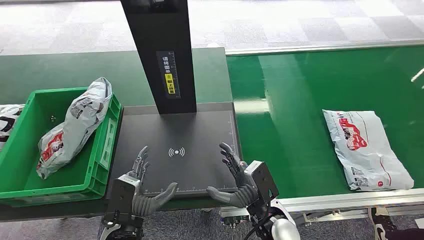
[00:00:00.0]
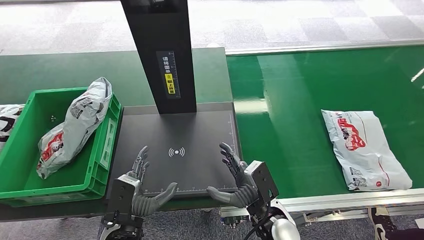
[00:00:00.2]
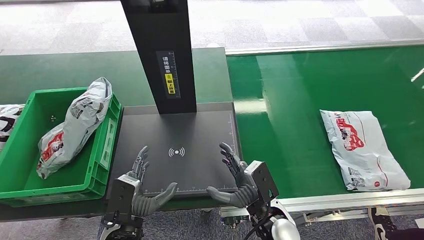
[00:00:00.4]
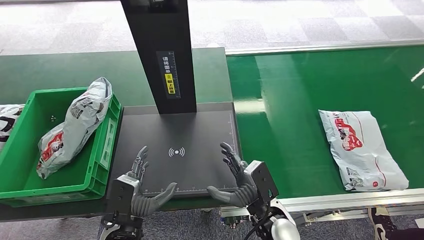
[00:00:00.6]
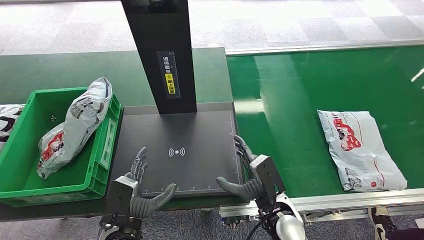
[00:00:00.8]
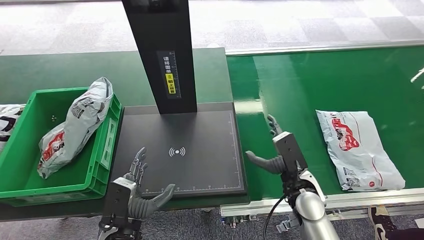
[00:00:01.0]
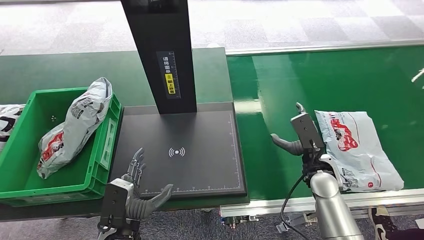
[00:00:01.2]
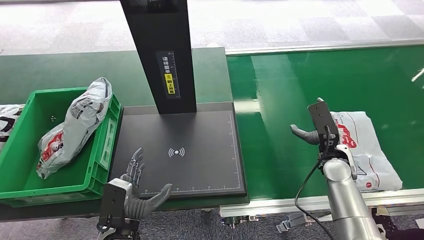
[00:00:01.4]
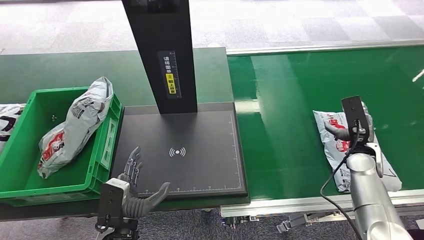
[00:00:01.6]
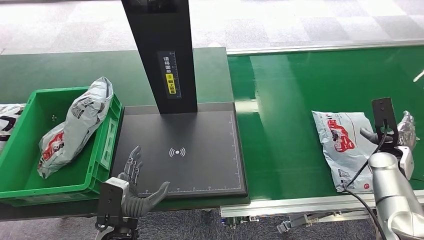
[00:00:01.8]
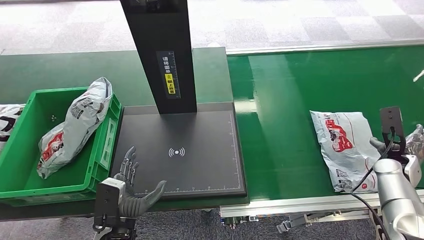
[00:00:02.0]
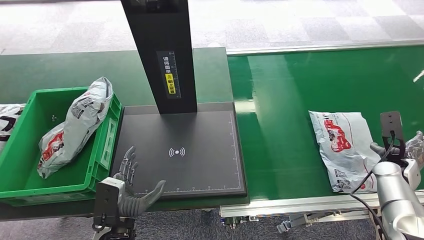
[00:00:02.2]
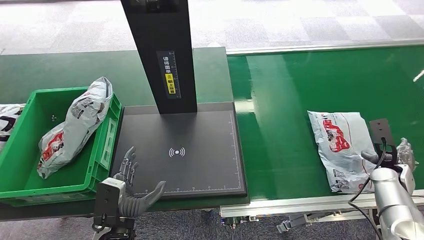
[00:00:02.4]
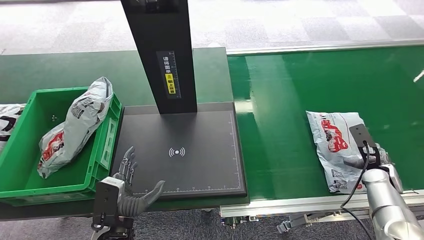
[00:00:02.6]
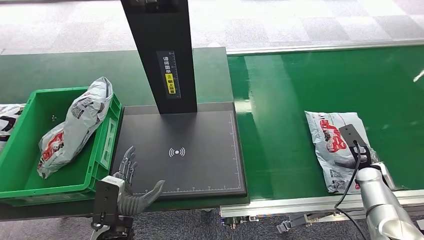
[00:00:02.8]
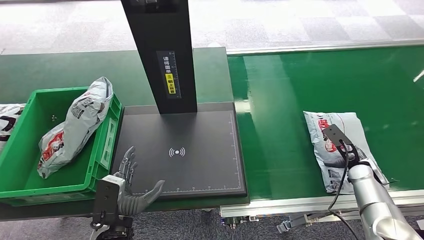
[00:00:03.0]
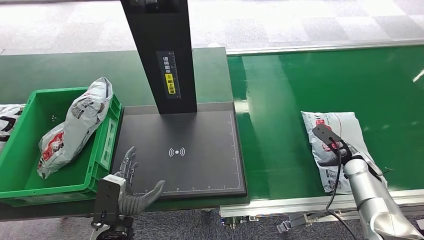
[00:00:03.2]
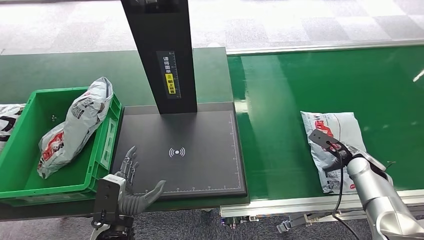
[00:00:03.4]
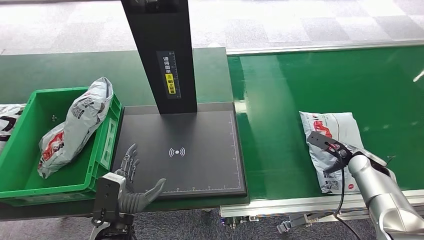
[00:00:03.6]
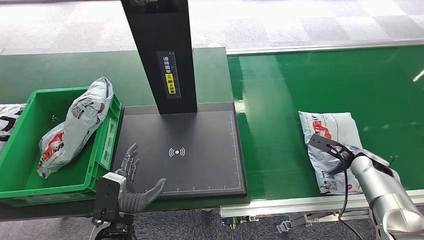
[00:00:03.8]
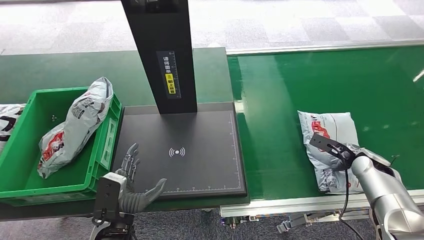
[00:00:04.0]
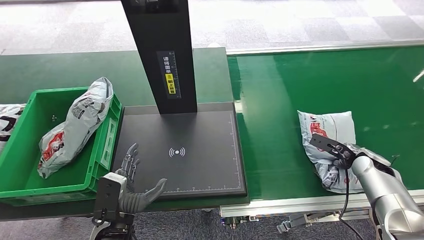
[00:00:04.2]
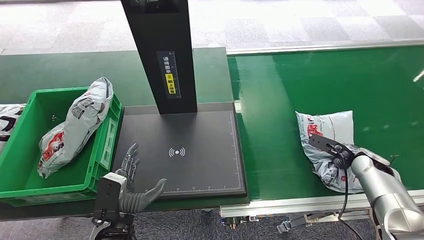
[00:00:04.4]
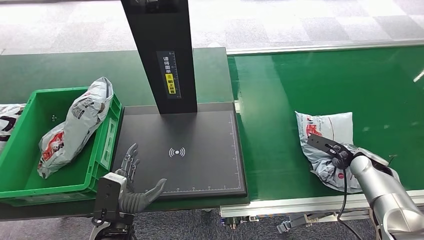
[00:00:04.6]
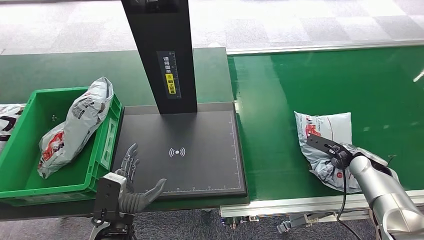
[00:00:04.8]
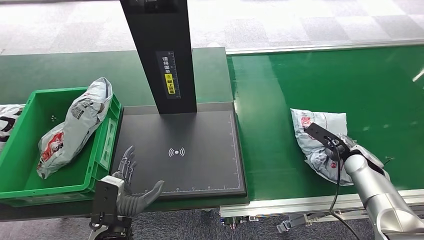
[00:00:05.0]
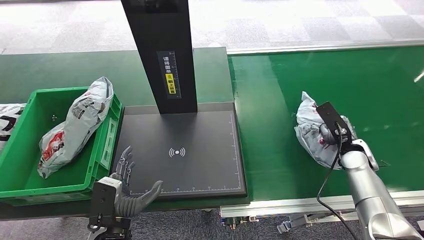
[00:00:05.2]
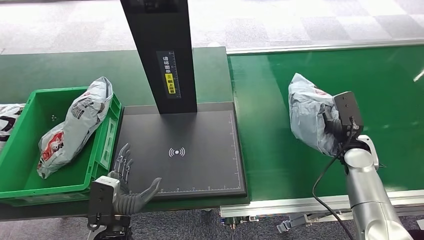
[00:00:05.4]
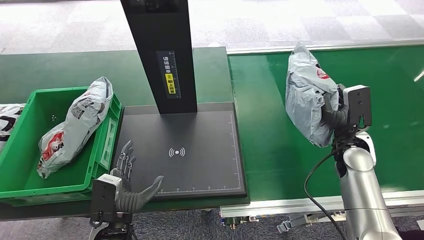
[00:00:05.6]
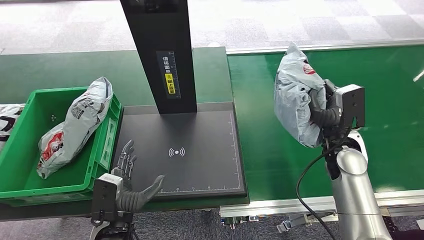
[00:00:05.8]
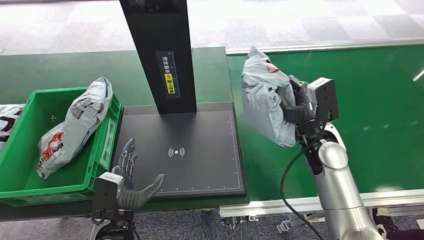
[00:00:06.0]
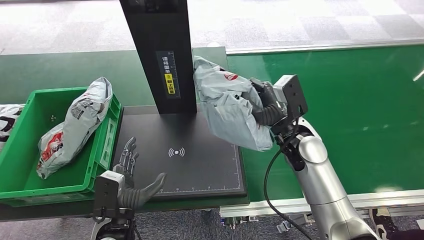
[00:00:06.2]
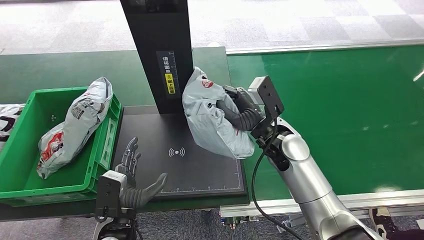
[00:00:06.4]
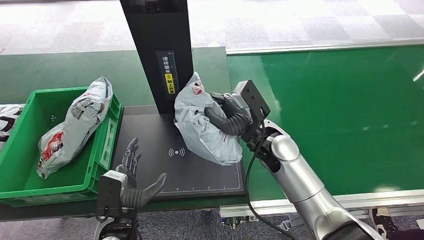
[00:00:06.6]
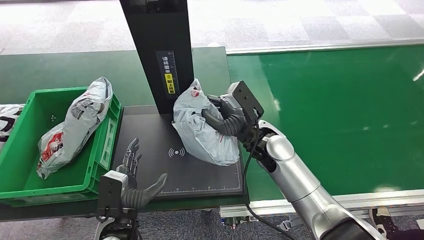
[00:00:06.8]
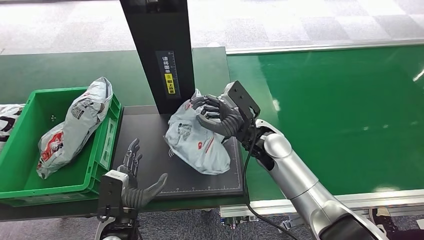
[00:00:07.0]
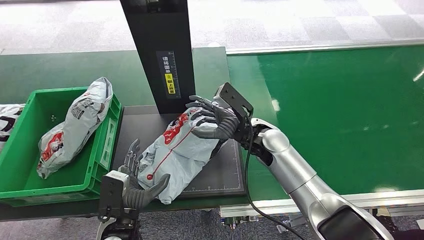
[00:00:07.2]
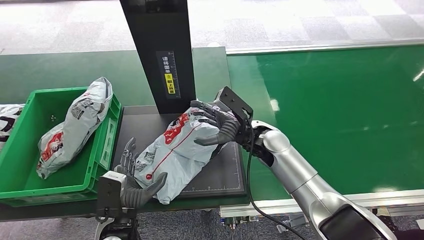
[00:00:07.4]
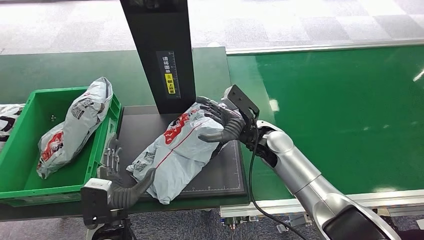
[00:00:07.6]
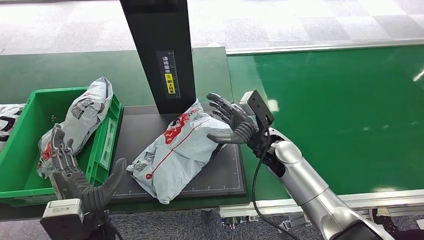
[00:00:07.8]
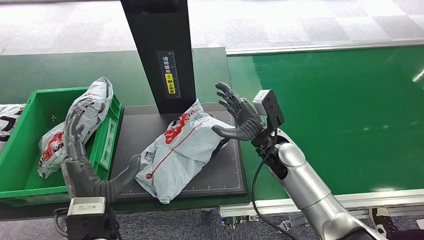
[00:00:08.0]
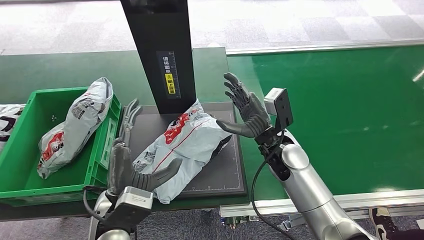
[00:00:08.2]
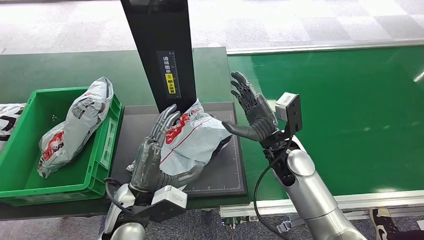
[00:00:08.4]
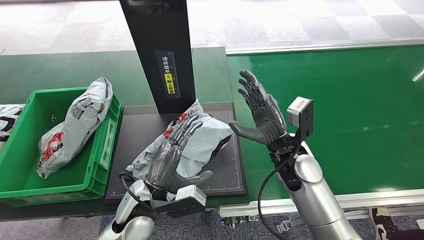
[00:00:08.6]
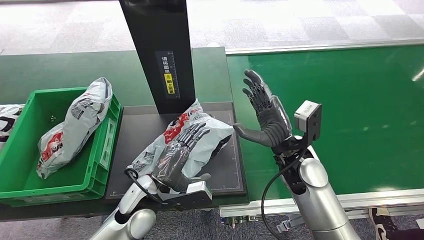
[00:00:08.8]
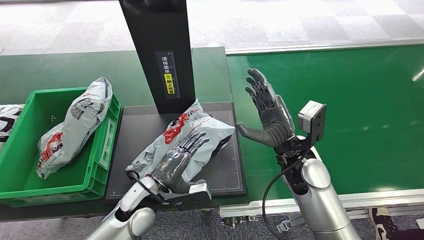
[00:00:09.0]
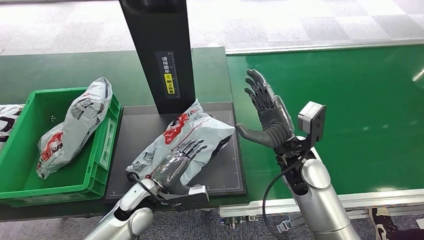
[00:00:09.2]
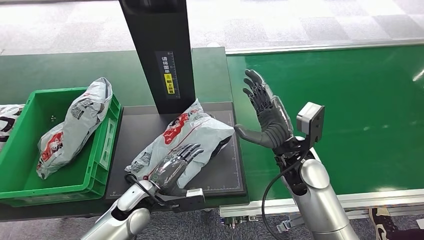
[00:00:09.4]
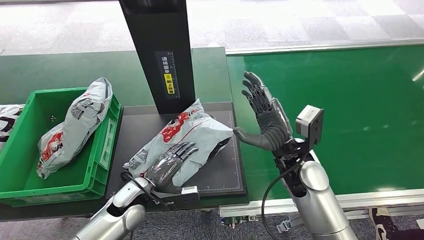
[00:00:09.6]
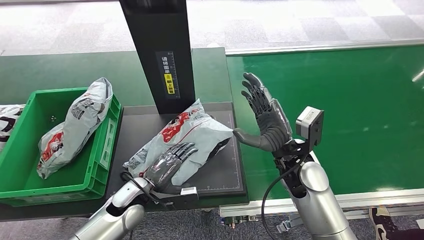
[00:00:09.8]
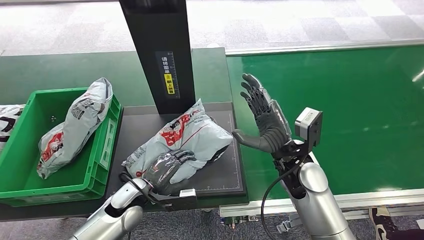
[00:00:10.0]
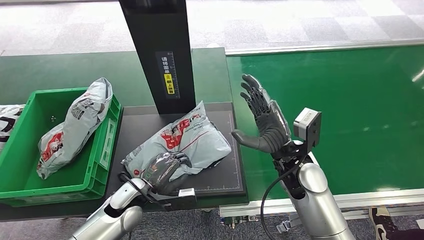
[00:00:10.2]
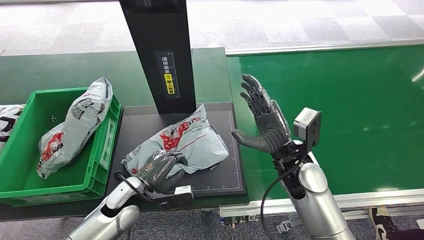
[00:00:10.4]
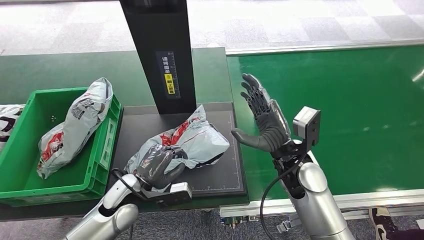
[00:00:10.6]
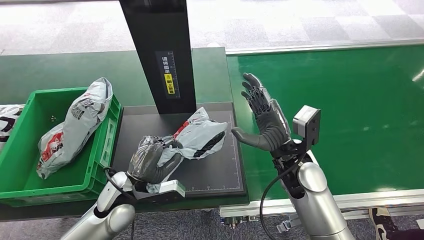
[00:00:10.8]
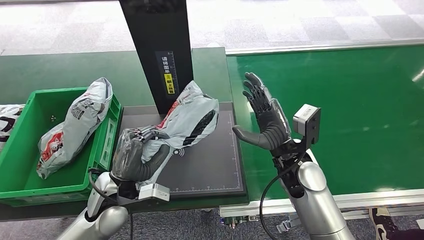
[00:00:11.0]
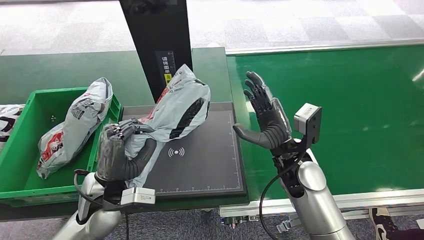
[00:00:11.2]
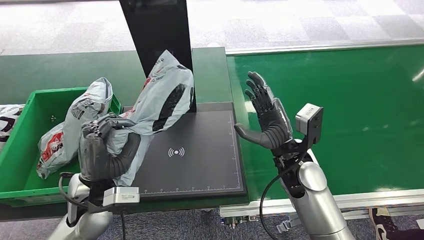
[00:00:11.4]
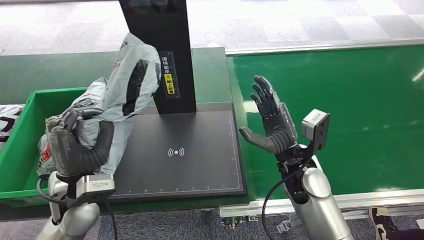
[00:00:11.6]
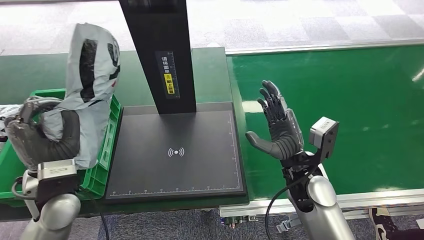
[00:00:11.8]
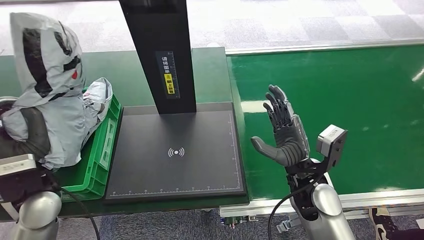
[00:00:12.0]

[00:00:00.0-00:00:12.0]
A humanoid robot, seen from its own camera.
Step, 00:00:00.0 to 00:00:05.4: Pick up the package from the conveyor belt.
Step, 00:00:05.8 to 00:00:08.2: Place the package onto the inbound machine.
Step, 00:00:08.6 to 00:00:11.2: Pick up the package from the inbound machine.
00:00:01.6 to 00:00:03.0: The right hand is displaced downward by about 5 cm, and reaches roughly 10 cm to the right, then returns.
00:00:04.4 to 00:00:06.0: The right hand is displaced to the left and upward by roughly 20 cm.
00:00:07.6 to 00:00:09.0: The left hand goes about 10 cm forward, while the right hand is displaced backward by about 5 cm.
00:00:09.0 to 00:00:10.4: The left hand is displaced to the left by some 5 cm.

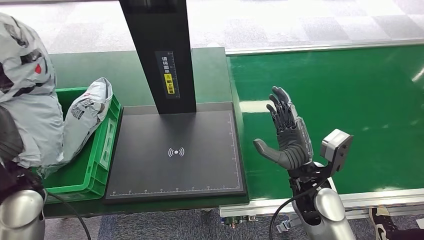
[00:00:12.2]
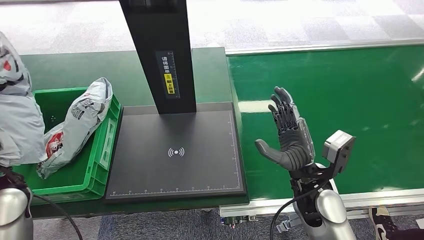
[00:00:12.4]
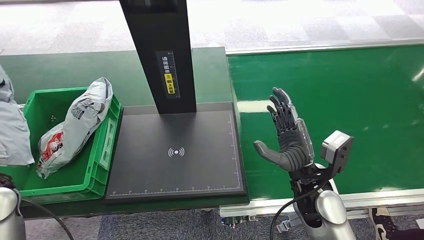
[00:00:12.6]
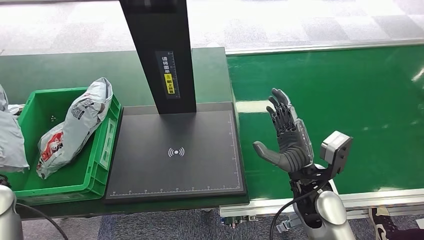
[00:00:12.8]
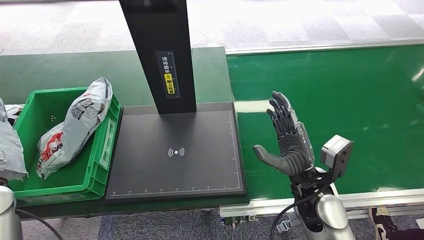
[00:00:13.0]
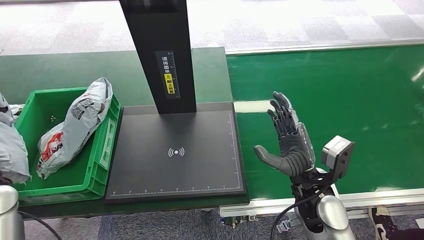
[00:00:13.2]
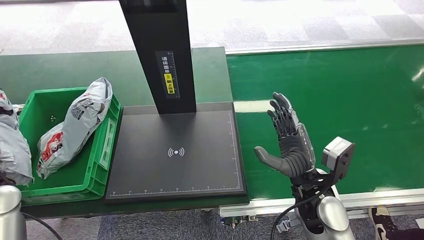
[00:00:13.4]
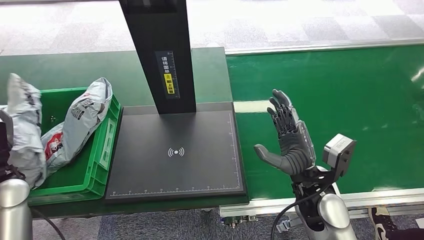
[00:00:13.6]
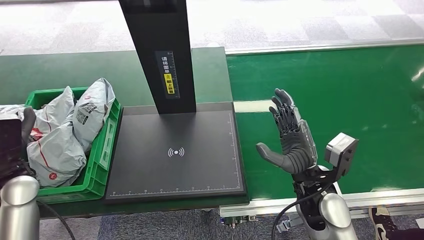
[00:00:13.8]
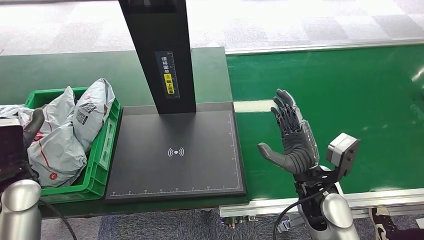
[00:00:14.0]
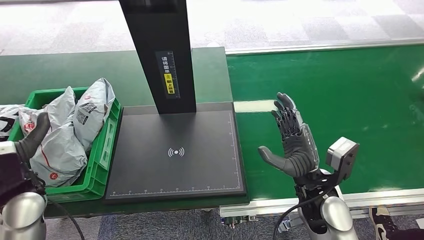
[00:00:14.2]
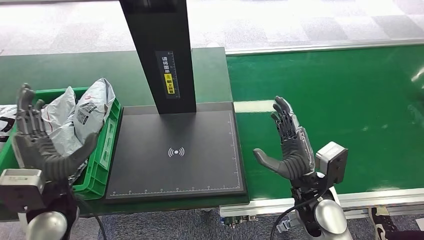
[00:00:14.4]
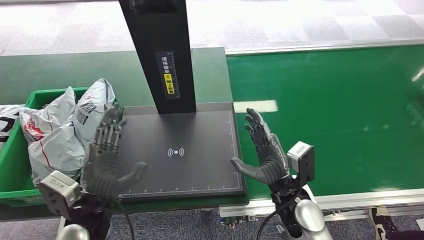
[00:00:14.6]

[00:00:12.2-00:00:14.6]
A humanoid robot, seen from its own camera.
Step, 00:00:12.2 to 00:00:14.6: Place the package into the parcel locker.
00:00:12.2 to 00:00:13.4: The left hand travels to the left and downward by approximately 10 cm.
00:00:13.4 to 00:00:14.6: The left hand shifts about 25 cm to the right.
